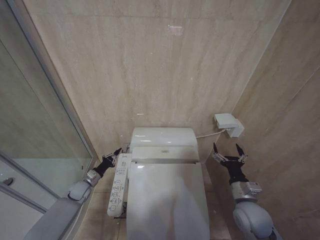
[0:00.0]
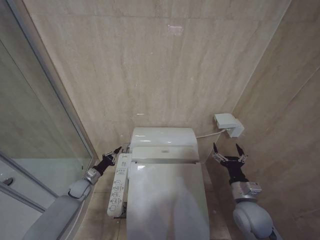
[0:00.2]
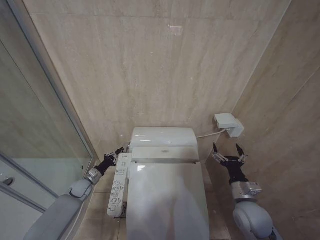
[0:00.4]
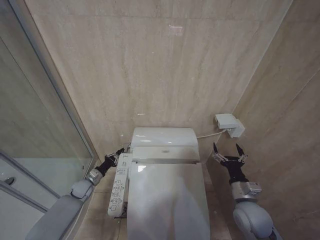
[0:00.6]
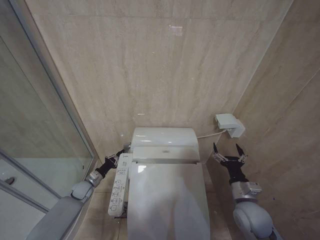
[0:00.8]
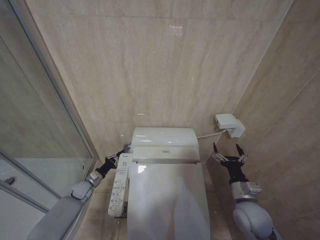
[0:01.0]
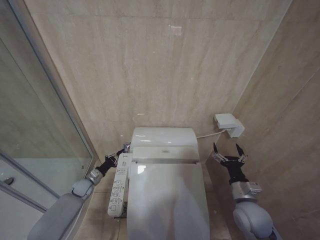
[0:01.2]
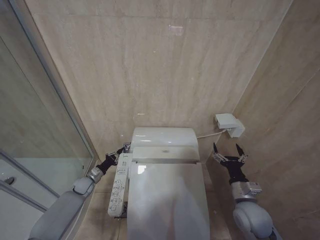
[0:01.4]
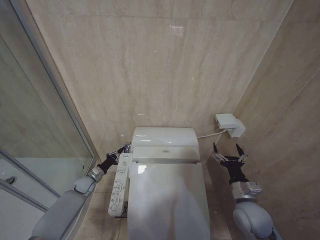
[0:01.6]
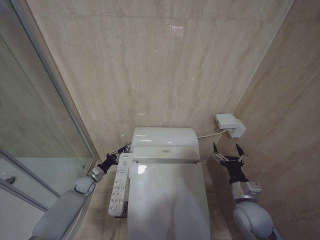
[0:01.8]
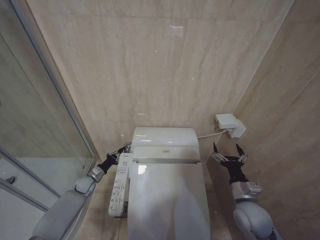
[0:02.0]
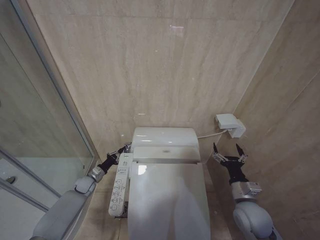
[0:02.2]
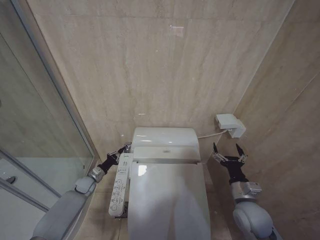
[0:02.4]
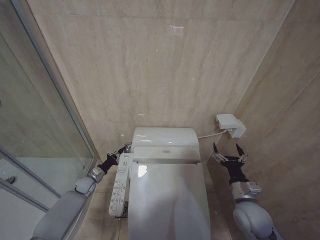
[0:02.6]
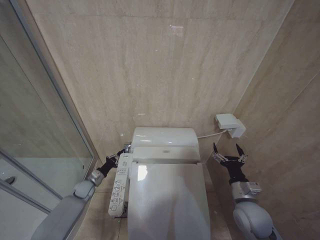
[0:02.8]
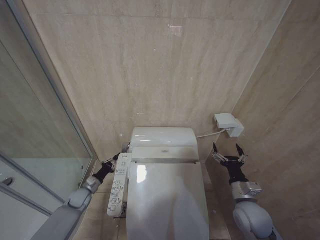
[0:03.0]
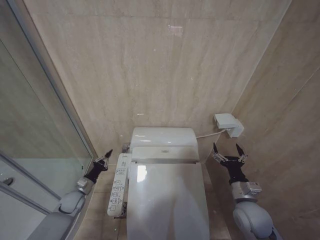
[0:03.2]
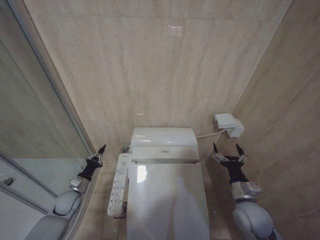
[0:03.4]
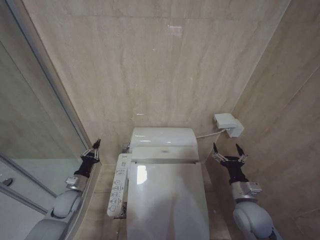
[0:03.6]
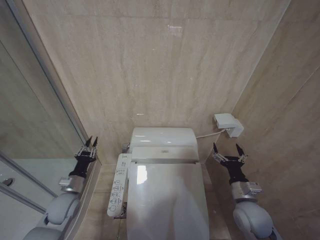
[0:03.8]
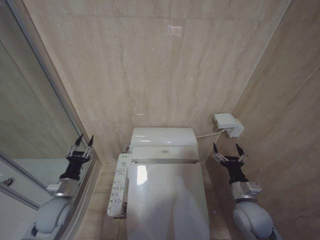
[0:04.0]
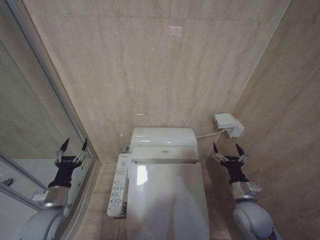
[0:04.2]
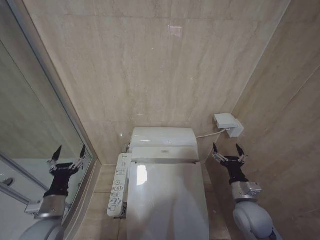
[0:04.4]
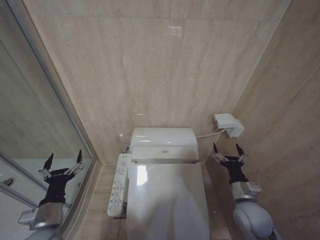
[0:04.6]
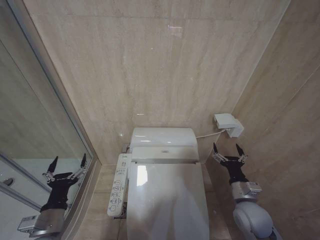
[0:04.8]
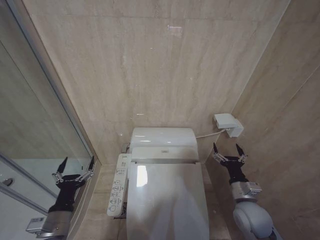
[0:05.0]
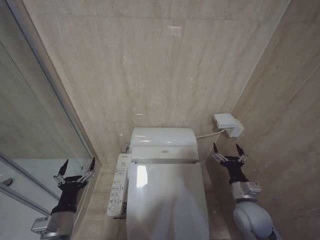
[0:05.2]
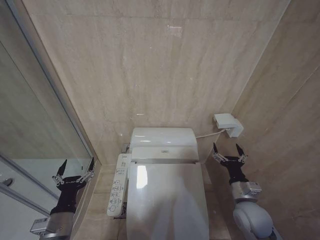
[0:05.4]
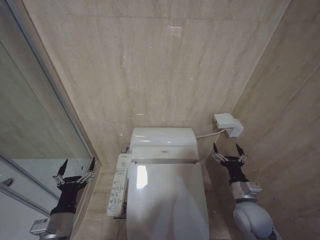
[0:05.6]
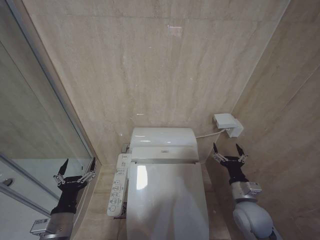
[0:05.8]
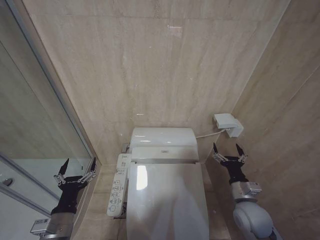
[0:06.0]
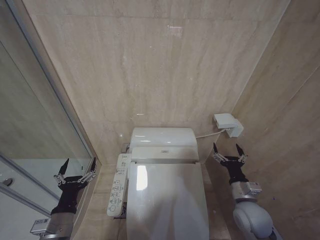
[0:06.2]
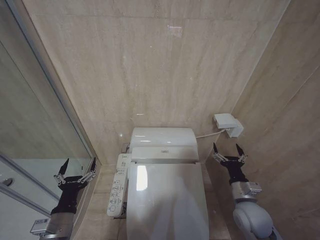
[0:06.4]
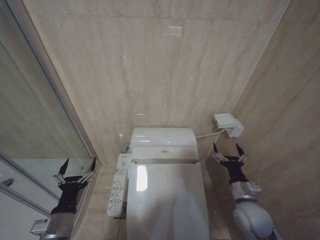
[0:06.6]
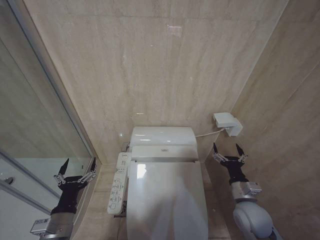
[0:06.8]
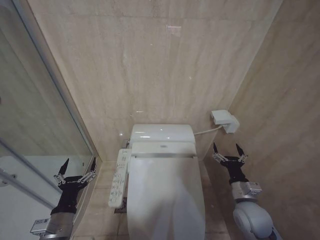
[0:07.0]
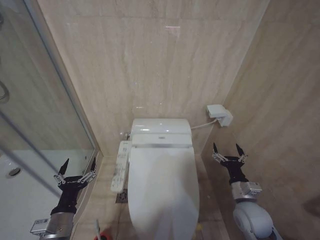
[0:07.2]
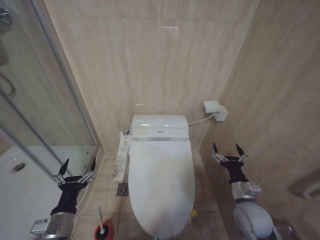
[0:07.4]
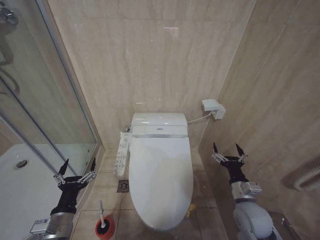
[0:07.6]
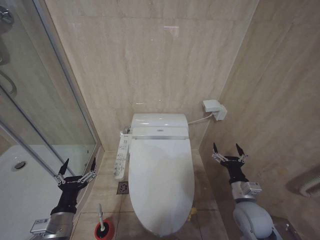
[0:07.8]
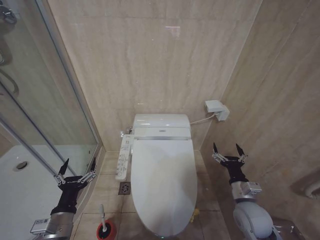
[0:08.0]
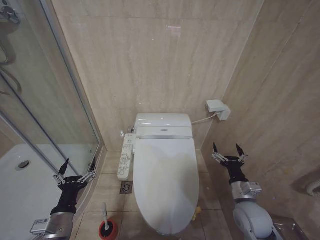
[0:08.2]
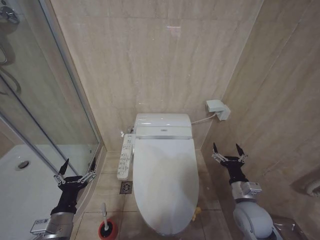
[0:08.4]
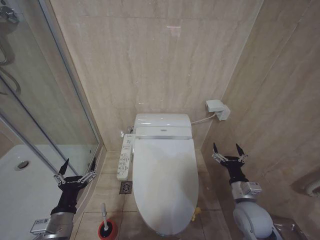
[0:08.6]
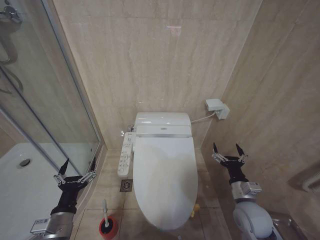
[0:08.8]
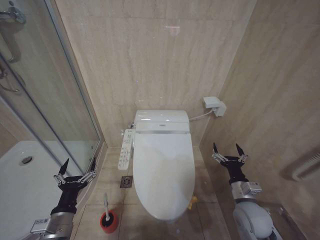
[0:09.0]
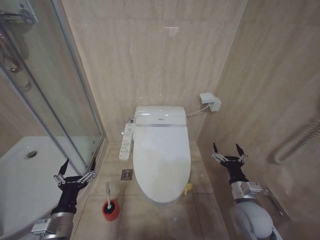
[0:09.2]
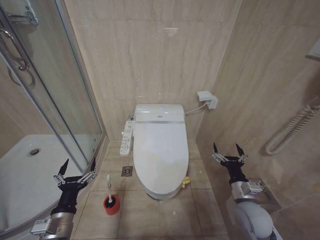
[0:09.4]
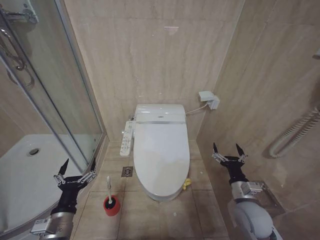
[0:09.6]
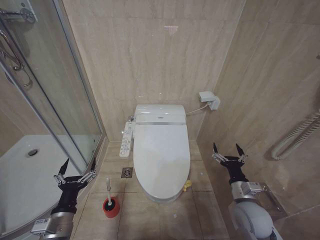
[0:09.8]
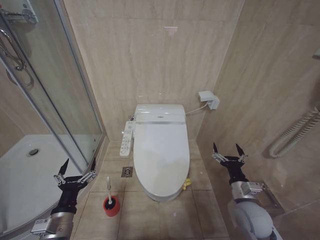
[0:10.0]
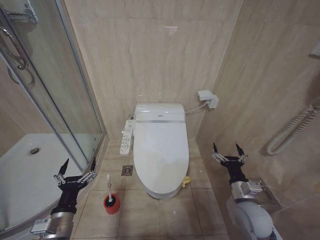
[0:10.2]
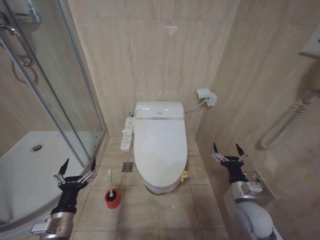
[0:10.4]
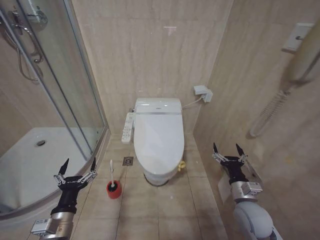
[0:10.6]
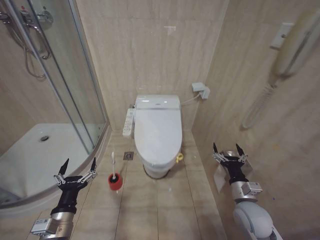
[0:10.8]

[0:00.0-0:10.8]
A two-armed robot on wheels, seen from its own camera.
Task of the whole recording: Open the toilet lid, clean the toilet bowl with a toilet brush, close the toilet lid, and flush.
0:00.0 to 0:03.0: The grippers make only small movements.
0:03.0 to 0:04.6: The left gripper is displaced backward and upward by approximately 25 cm, and opens up.
0:04.6 to 0:06.2: The left gripper shifts by about 5 cm.
0:06.2 to 0:09.2: Both grippers stay about where they are.

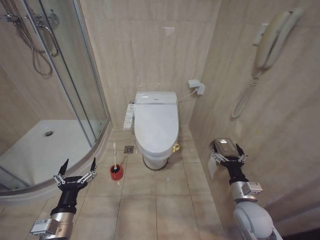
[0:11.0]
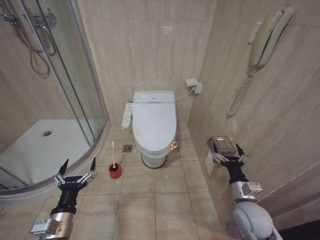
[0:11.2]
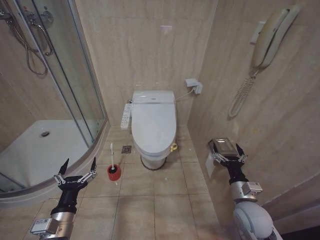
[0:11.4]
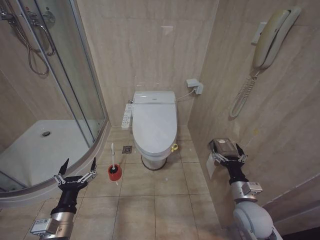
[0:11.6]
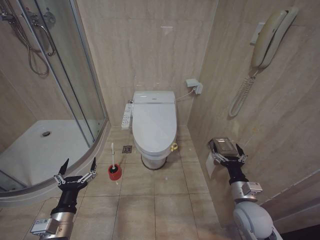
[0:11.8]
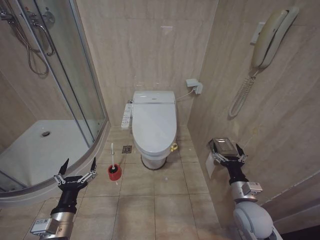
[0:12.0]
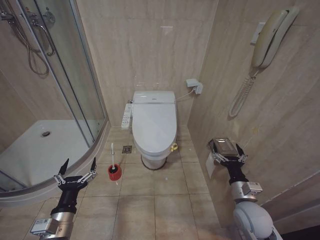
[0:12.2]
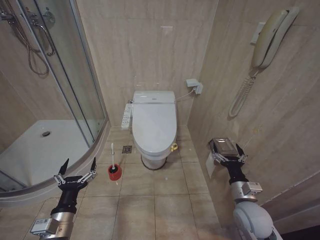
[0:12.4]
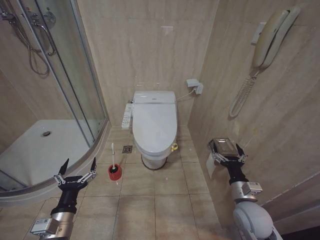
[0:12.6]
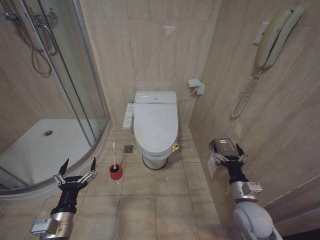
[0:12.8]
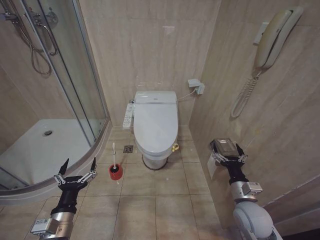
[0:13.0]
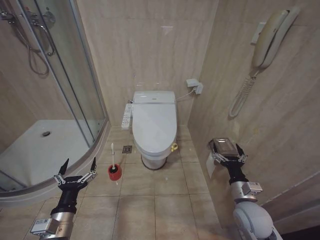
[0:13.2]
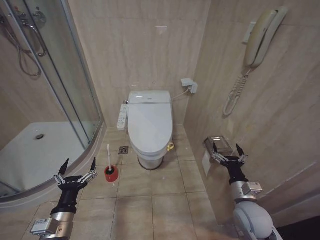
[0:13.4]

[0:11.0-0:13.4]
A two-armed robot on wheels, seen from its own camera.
Task of the whole recording: Open the toilet lid, clean the toilet bowl with a toilet brush, close the toilet lid, and flush.
0:11.0 to 0:13.4: The two grippers keep their place.
